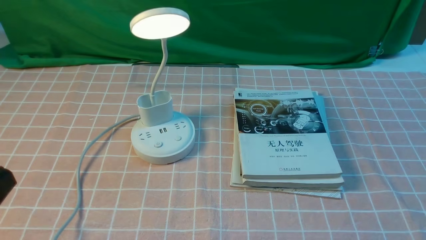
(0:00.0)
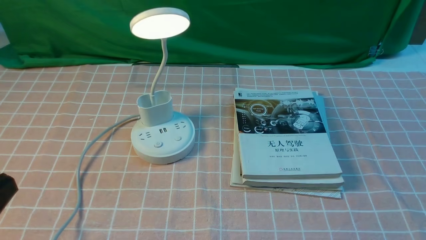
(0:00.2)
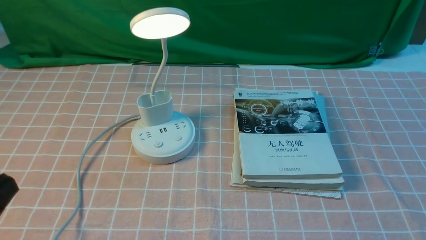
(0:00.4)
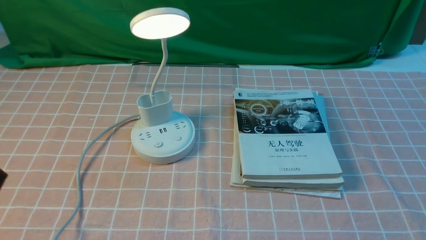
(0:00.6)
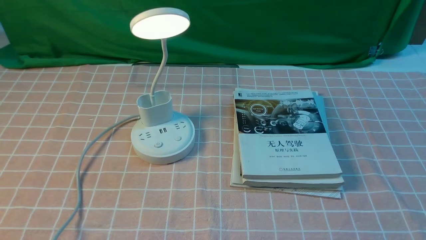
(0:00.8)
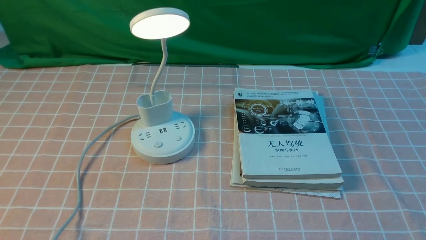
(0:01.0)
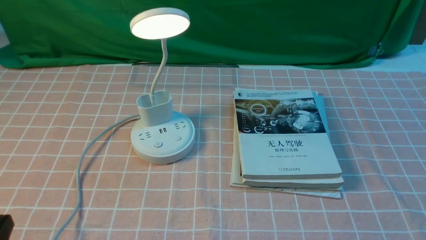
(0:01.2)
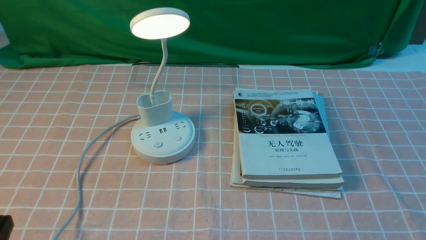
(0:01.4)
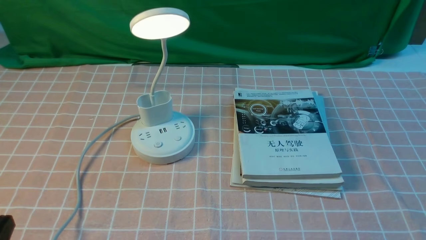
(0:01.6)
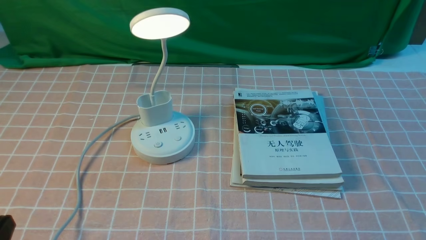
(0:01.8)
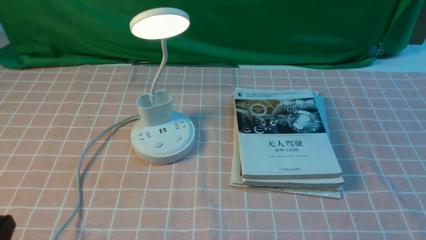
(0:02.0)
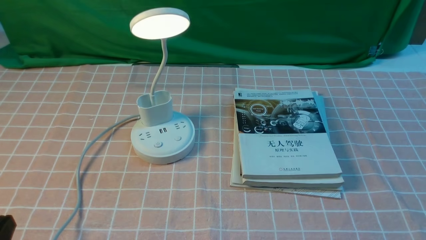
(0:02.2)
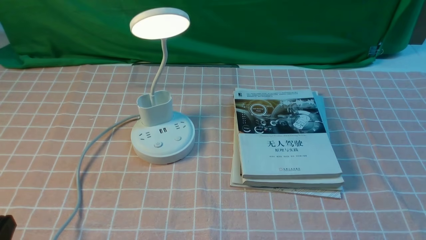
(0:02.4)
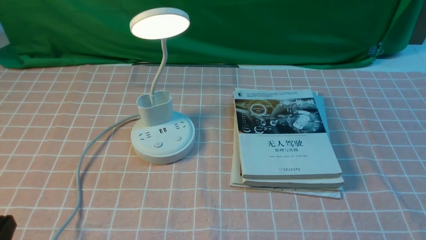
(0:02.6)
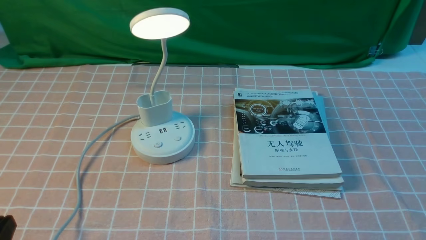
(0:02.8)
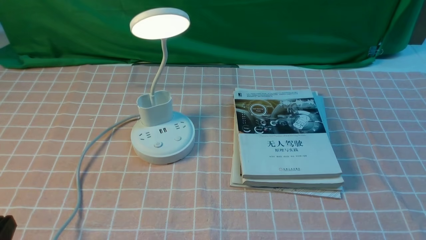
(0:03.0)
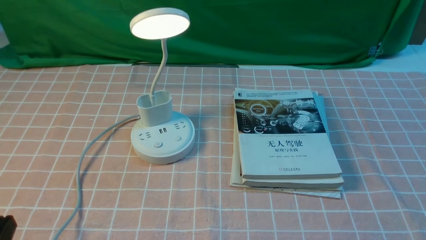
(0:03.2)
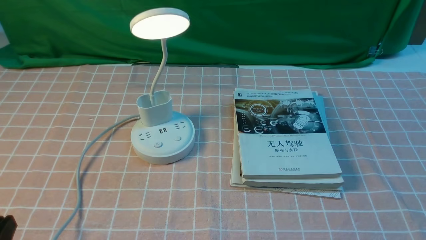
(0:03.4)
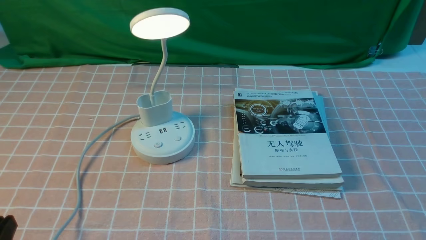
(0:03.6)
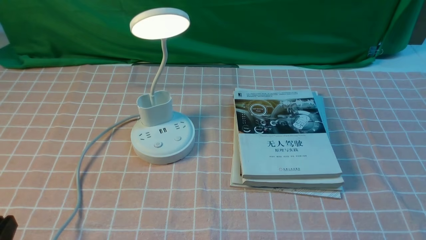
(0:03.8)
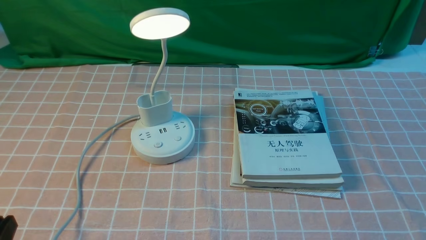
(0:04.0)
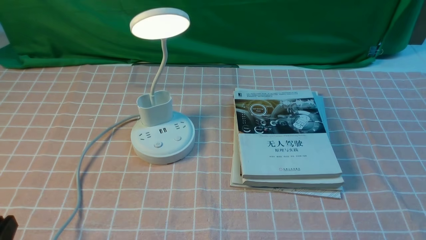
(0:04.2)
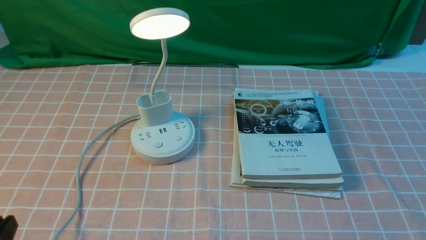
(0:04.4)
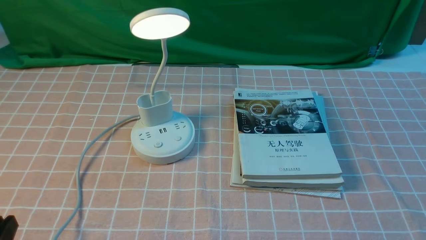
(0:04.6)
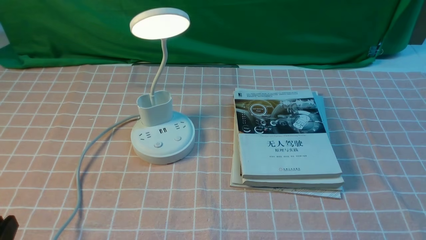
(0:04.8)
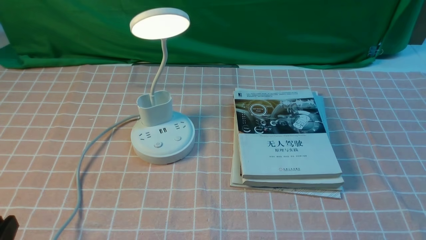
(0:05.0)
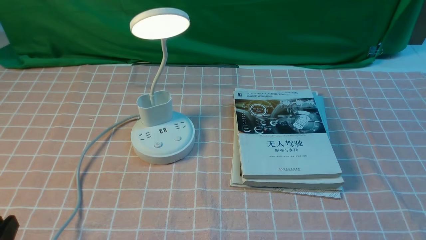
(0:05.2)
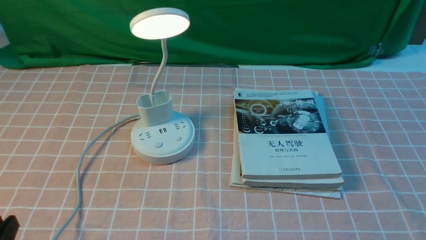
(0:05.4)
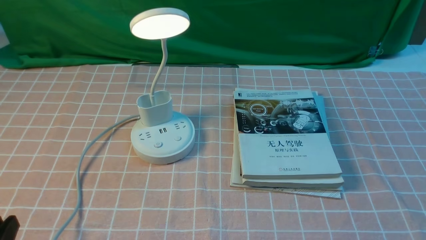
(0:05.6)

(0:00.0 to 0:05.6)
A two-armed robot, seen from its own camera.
0:00.0 - 0:01.4: The left gripper moves downward, some 10 cm.
0:02.8 - 0:05.6: The two grippers keep their place.

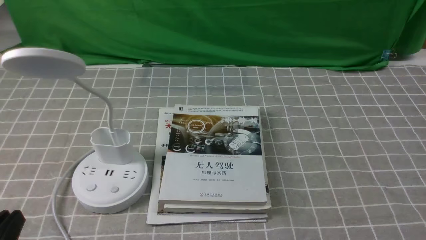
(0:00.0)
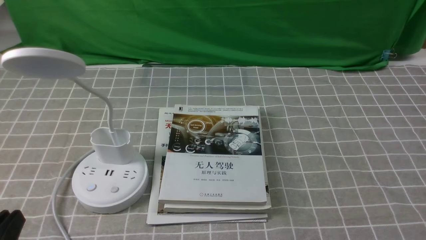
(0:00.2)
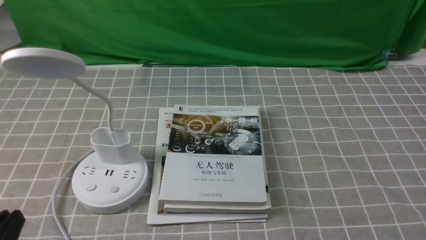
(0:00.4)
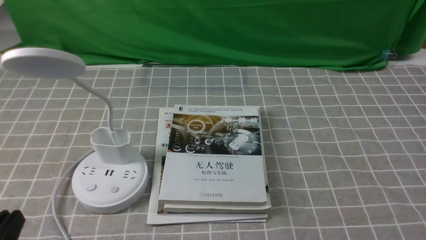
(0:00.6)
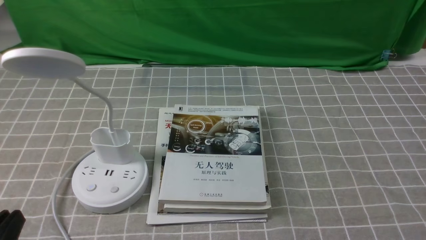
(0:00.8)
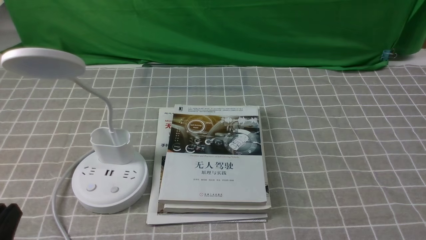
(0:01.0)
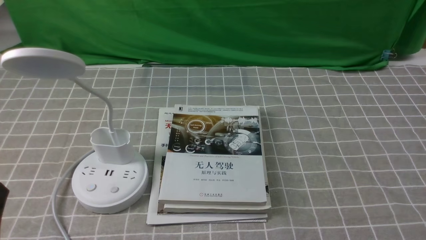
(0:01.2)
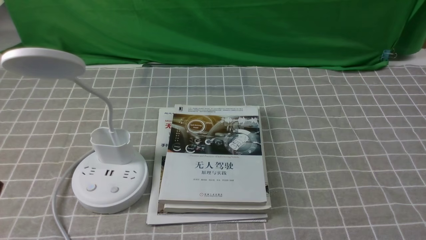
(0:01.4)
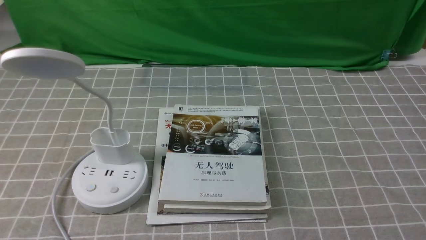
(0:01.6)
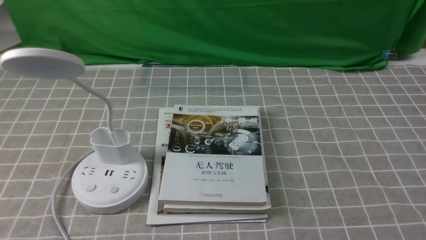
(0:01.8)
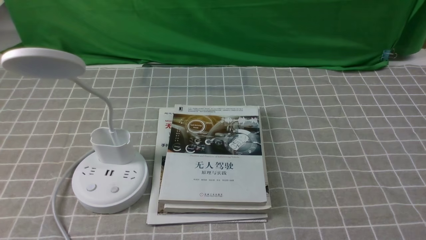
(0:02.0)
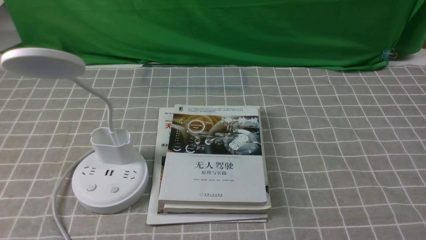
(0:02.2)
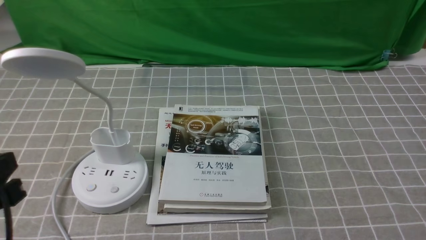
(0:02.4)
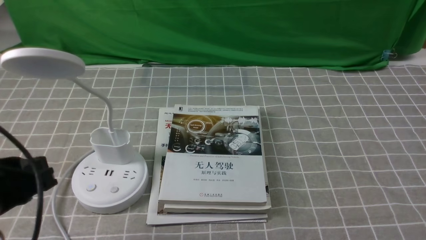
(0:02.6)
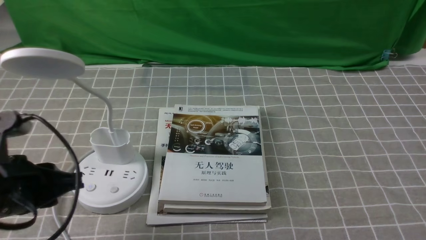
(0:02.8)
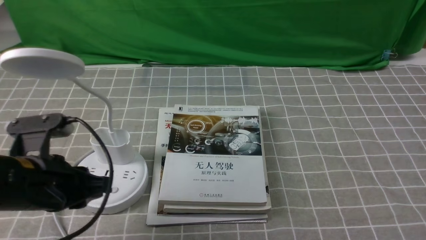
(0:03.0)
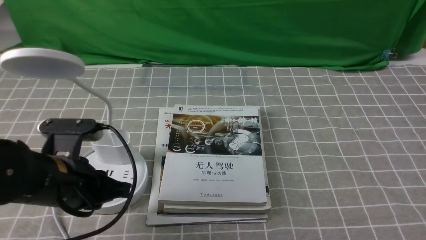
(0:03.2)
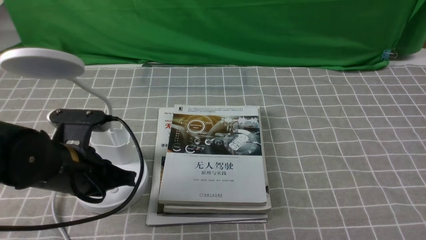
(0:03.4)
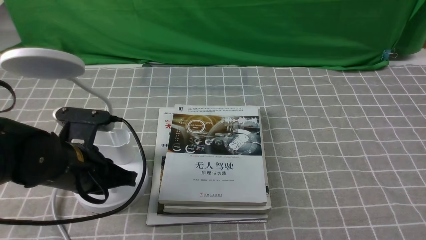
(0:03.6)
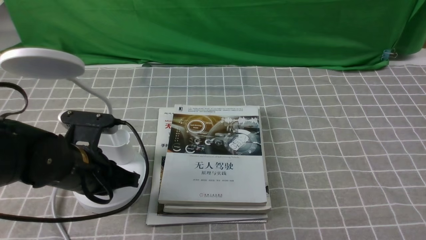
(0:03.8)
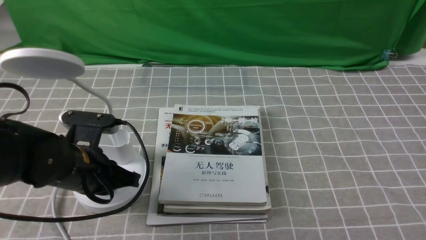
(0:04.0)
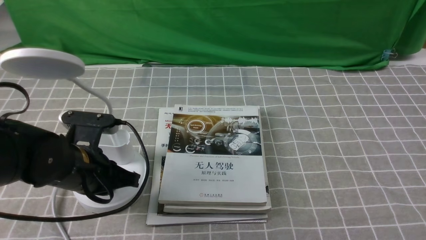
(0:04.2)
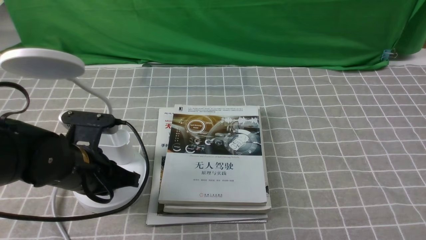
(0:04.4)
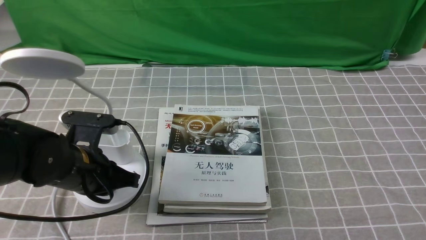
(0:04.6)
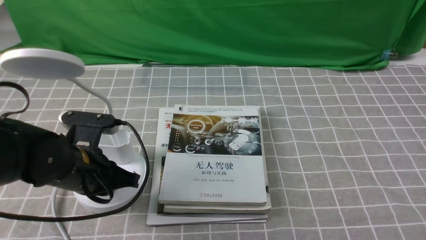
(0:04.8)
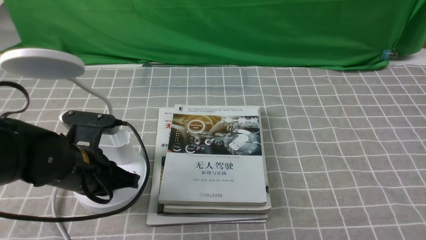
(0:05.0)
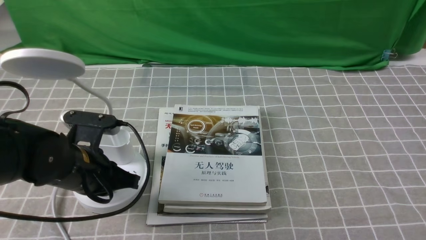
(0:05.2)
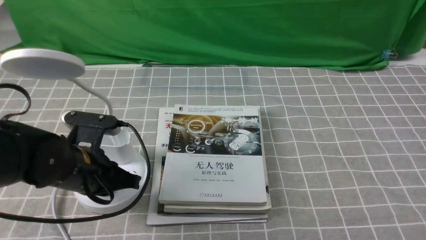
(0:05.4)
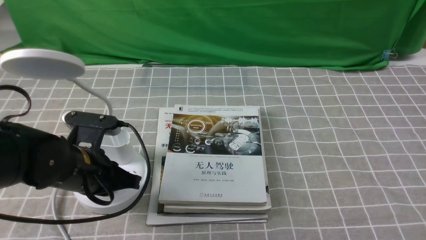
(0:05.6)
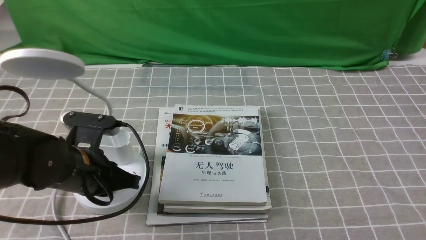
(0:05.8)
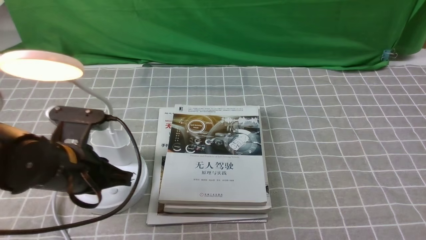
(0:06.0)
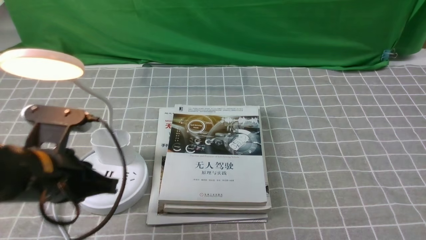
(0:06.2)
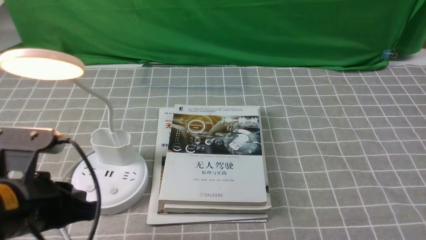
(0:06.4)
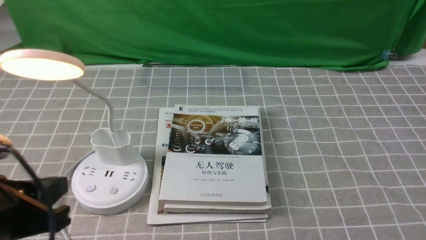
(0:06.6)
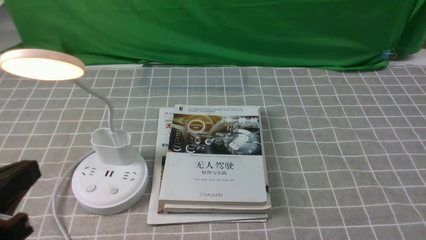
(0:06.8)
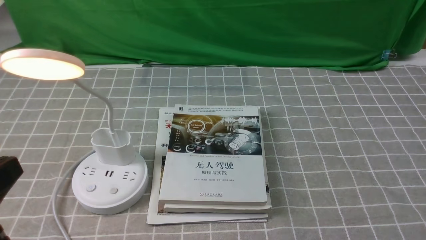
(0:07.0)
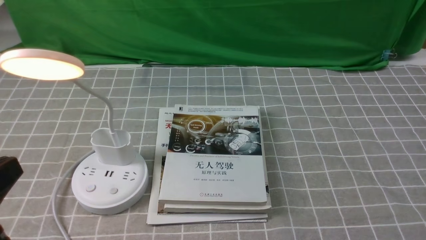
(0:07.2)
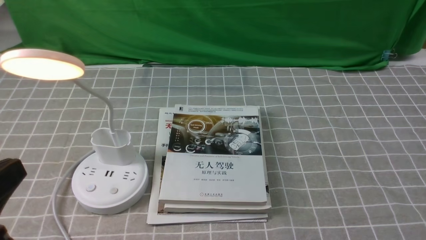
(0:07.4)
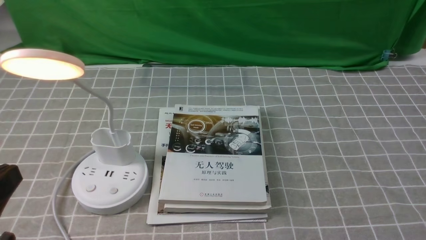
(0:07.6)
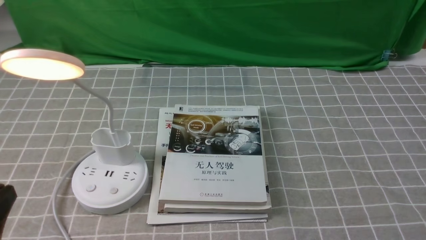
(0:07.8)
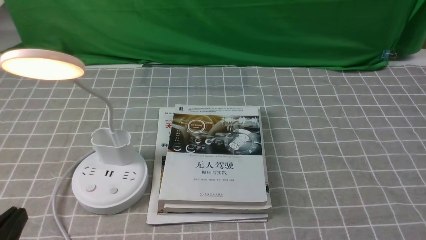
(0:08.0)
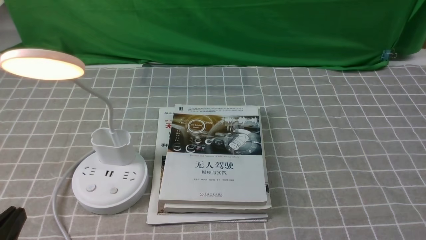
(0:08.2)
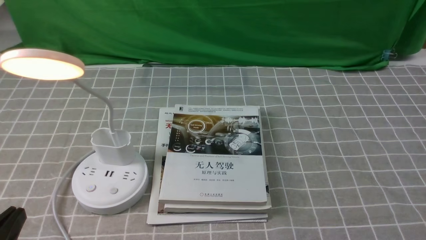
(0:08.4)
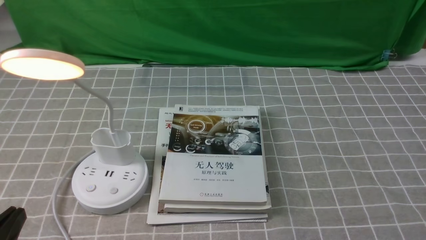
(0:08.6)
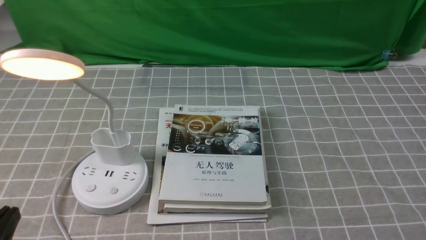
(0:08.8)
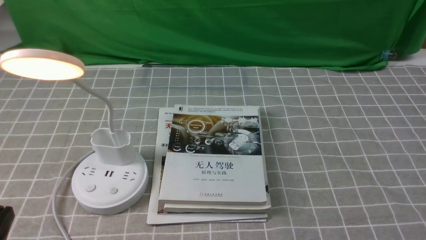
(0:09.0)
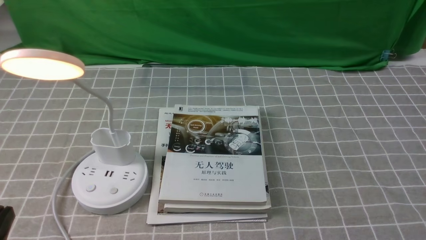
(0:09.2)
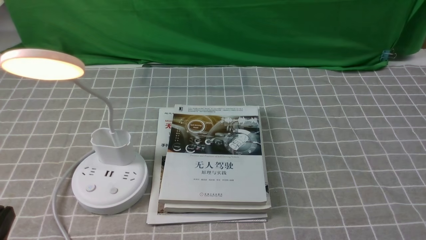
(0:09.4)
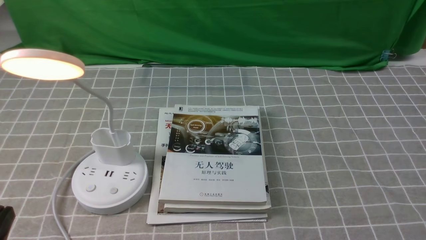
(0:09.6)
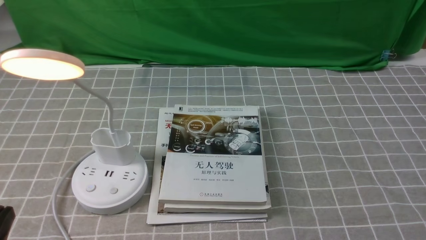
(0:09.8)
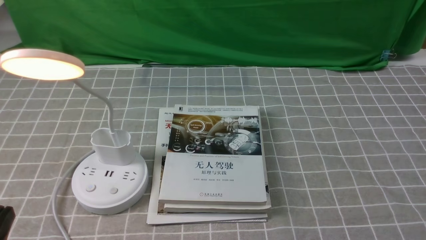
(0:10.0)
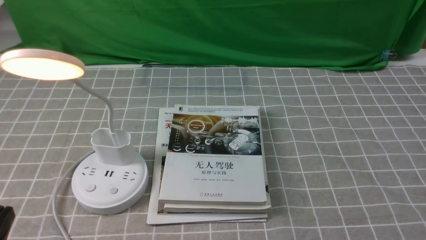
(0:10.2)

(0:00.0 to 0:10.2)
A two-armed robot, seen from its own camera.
Step, 0:00.0 - 0:06.0: use the left arm to press the button switch on the lamp holder.
0:01.4 - 0:03.0: The left gripper shifts roughly 15 cm forward.
0:03.0 - 0:04.4: The left gripper goes some 10 cm forward and downward, and closes up.
0:04.4 - 0:05.8: Both grippers stay about where they are.
0:05.8 - 0:07.2: The left gripper travels backward and upward by approximately 20 cm.
0:07.2 - 0:08.8: The left gripper travels downward by some 10 cm.
0:08.8 - 0:10.2: The two grippers keep their place.
